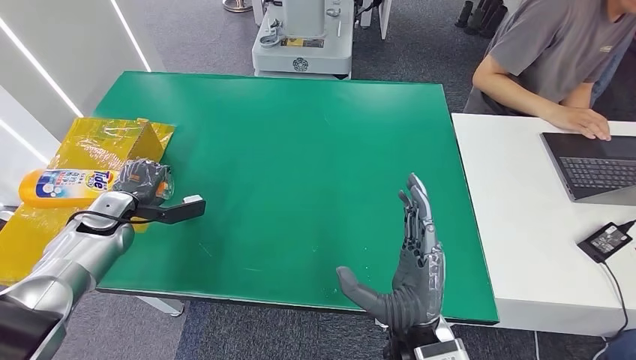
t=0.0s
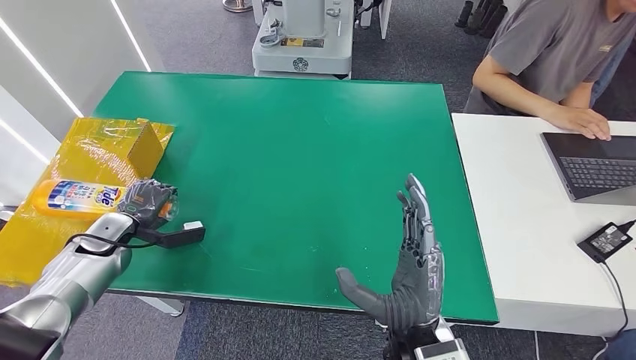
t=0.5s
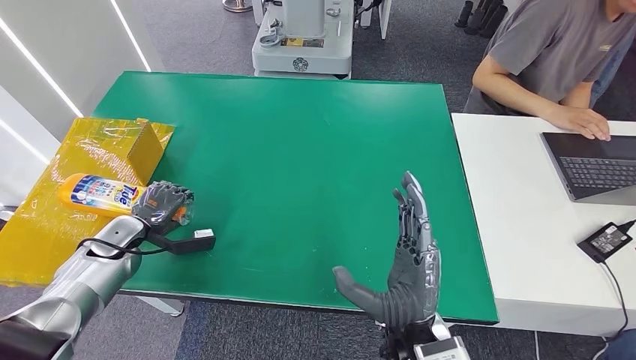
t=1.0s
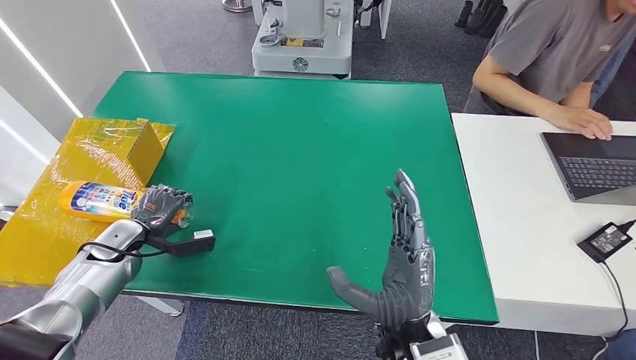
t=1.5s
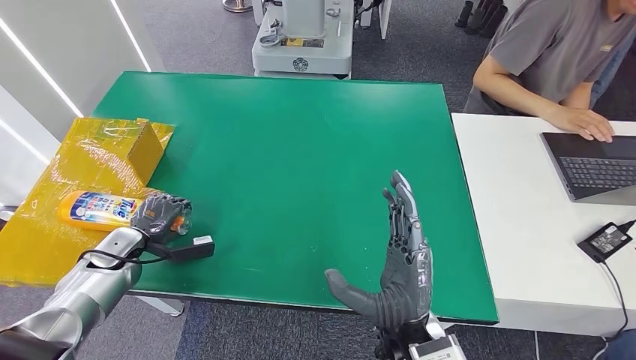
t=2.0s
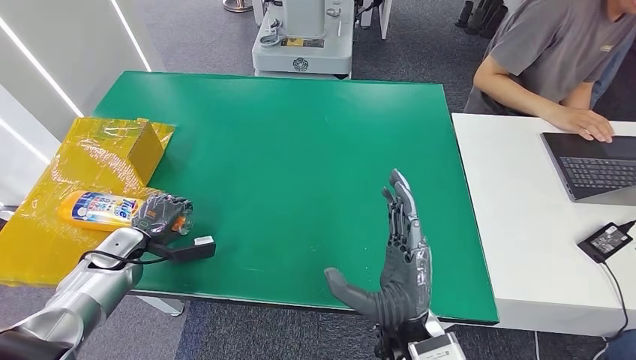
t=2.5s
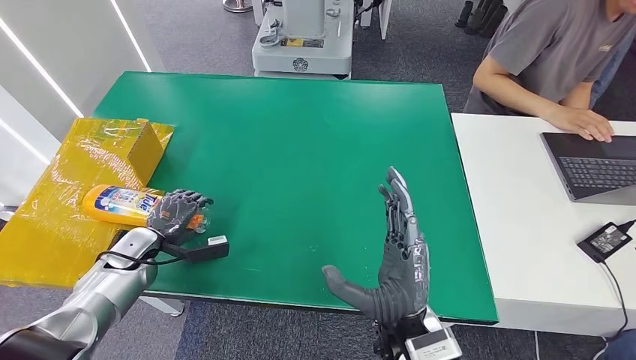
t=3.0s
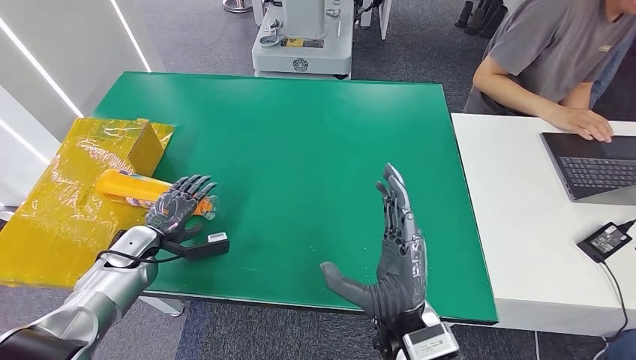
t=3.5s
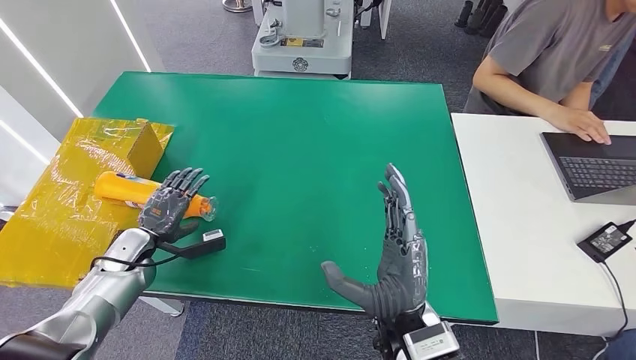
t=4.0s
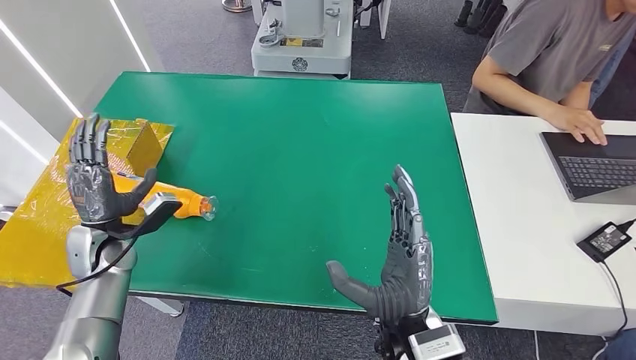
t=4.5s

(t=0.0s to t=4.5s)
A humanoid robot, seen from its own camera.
Step, t=0.0s - t=4.5s: Turn the bottle to the front side.
t=0.0s - t=2.0s: The left hand shifts roughly 5 cm downward.
t=2.0s - t=4.5s: The left hand shifts approximately 5 cm upward.

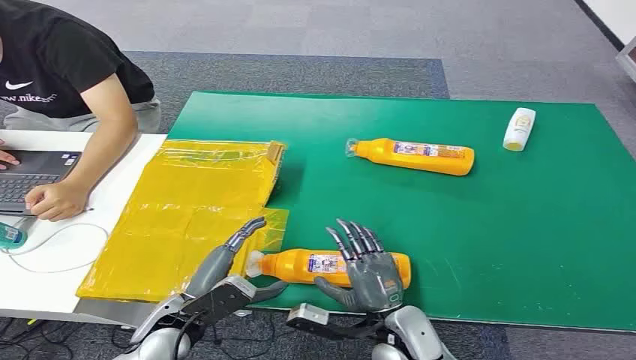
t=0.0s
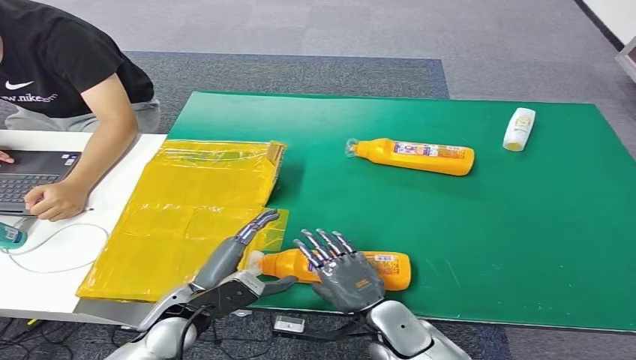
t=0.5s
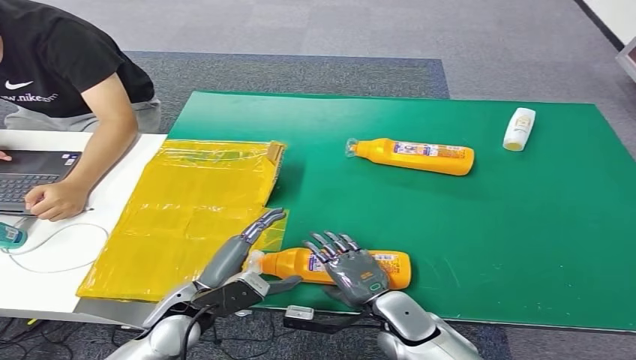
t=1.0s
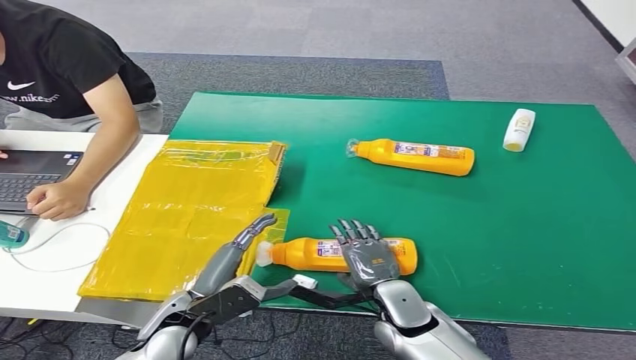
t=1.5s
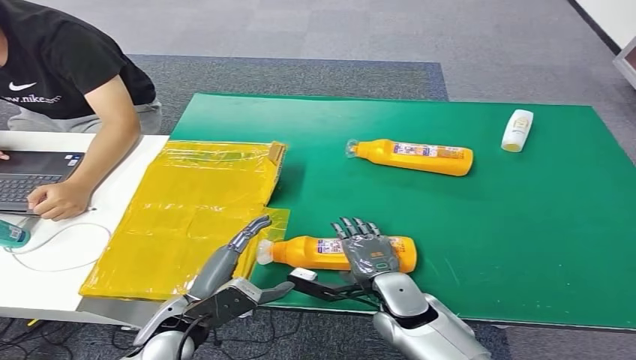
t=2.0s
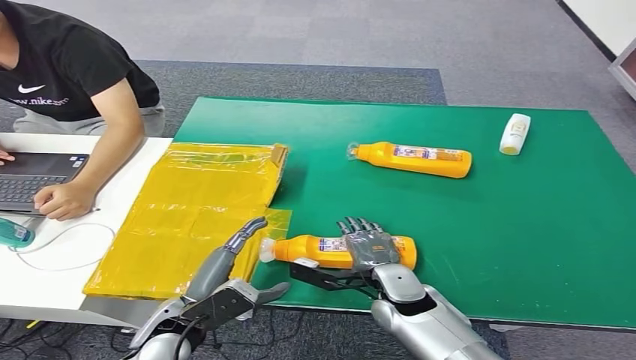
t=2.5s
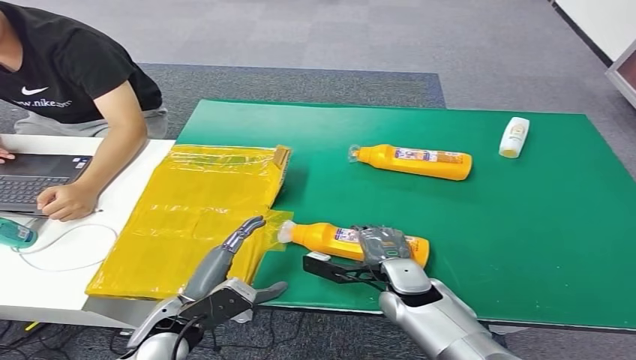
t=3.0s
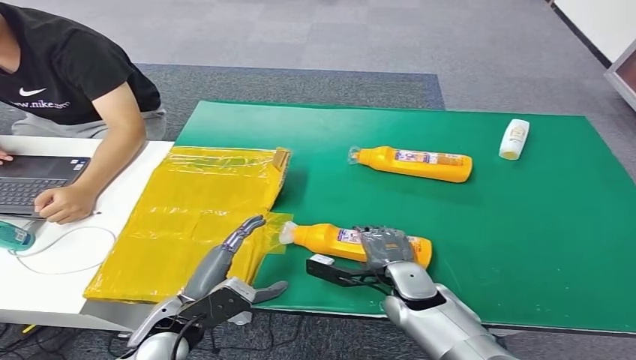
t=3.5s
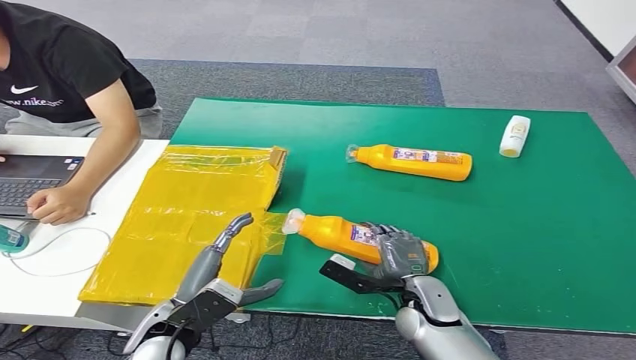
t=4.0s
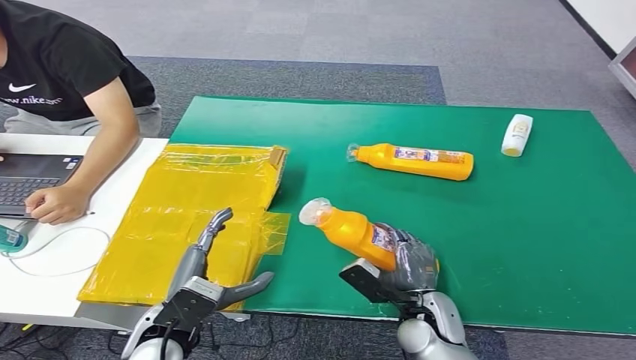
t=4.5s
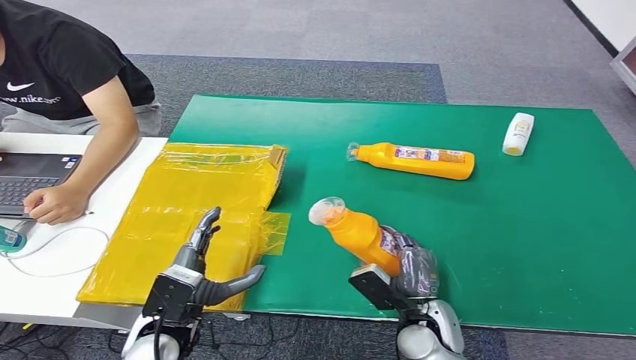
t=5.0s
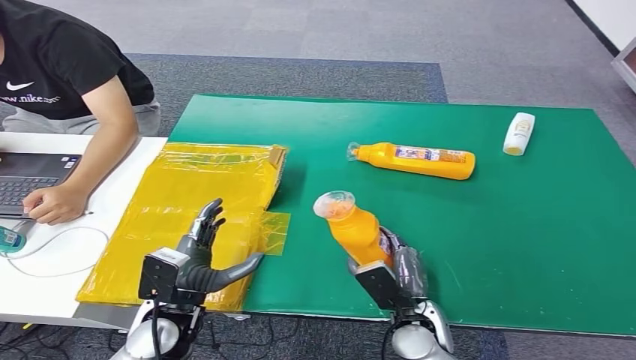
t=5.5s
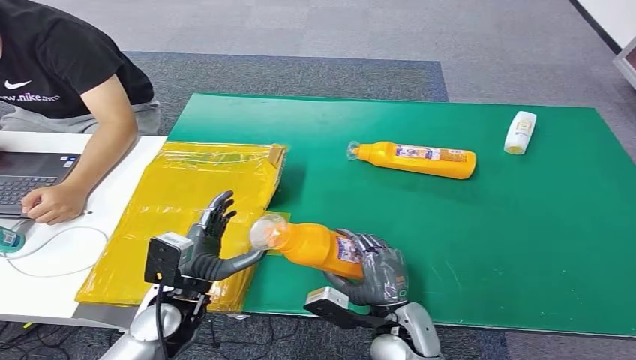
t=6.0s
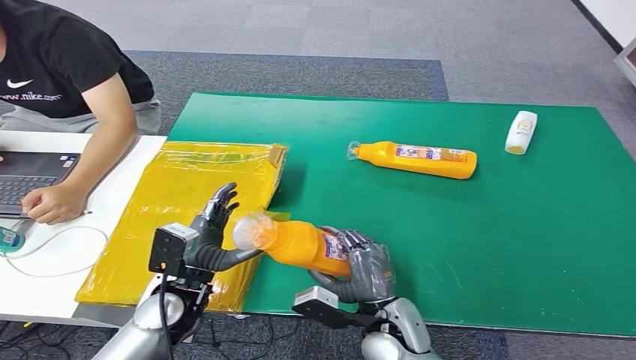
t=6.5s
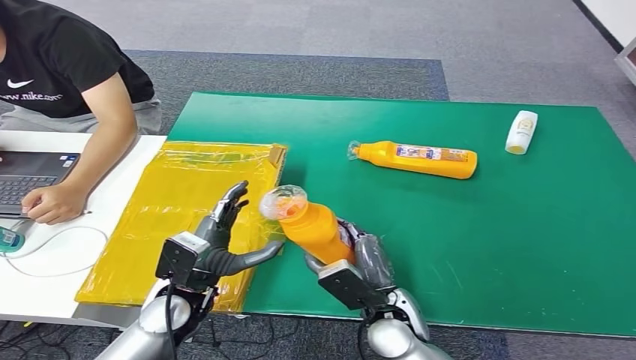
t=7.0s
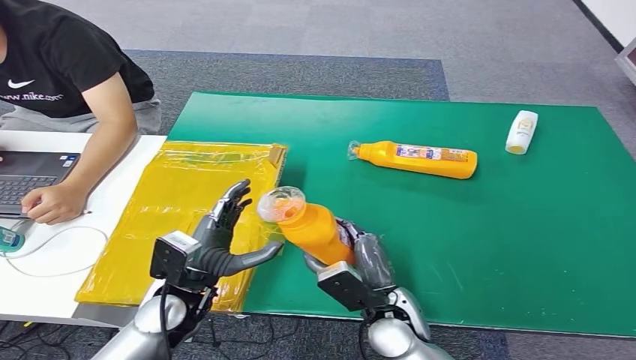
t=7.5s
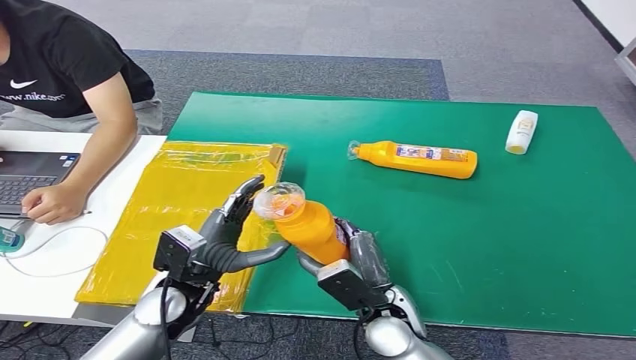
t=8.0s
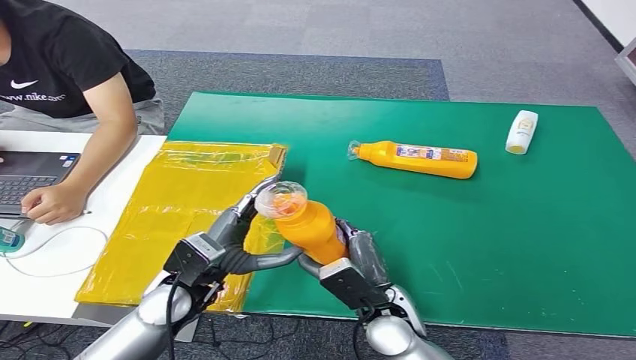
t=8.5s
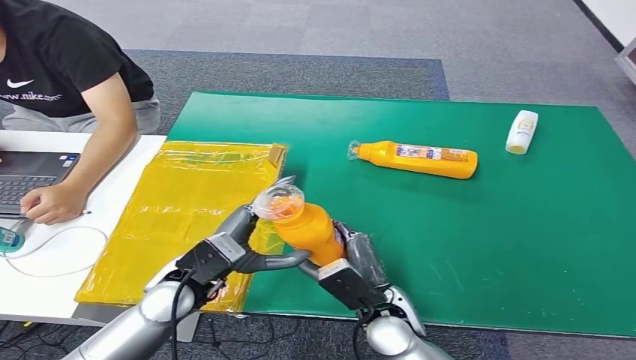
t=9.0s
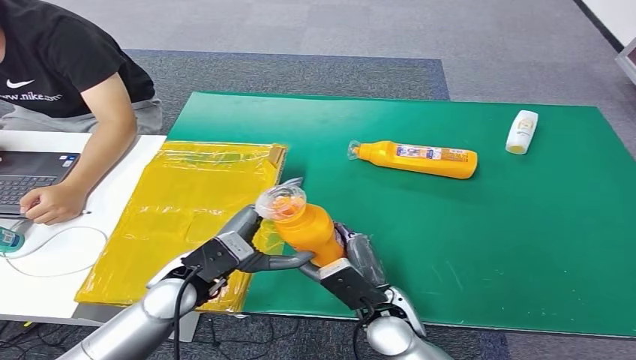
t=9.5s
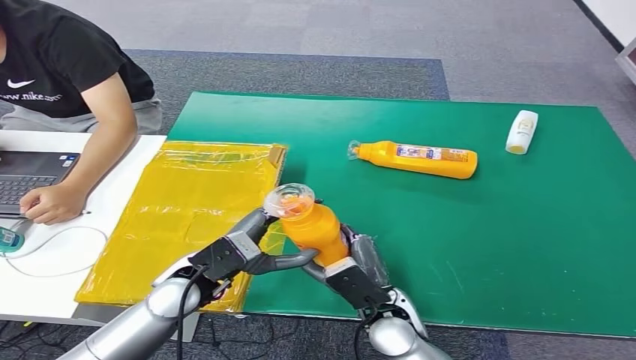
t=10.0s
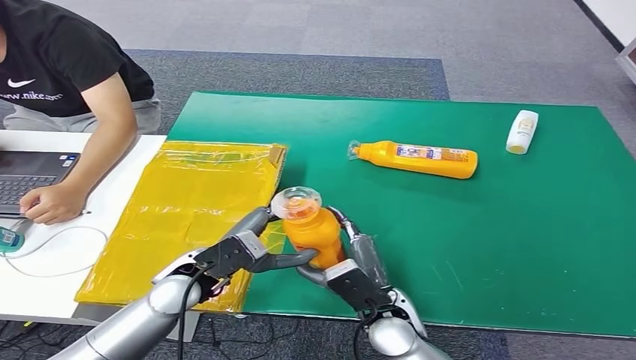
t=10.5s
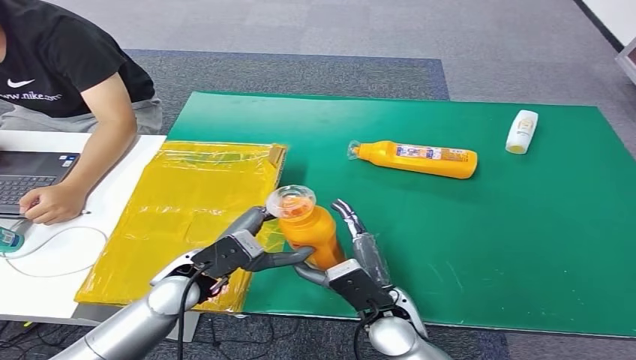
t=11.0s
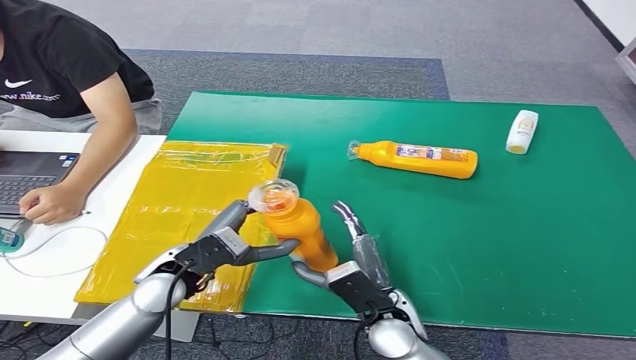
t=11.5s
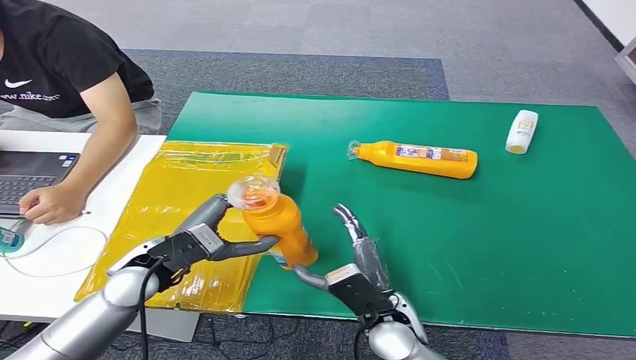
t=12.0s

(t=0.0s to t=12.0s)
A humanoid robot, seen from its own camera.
Step, t=0.0s - t=4.5s: Pick up the bottle from the table.
Step, t=5.0s - t=12.0s: Turn the bottle to the front side.
t=6.0s - t=8.0s: The right hand ends up approximately 5 cm from where it was.
t=8.0s - t=10.0s: The hands move only a little.
t=10.0s - t=12.0s: The left hand shifts some 5 cm to the left.

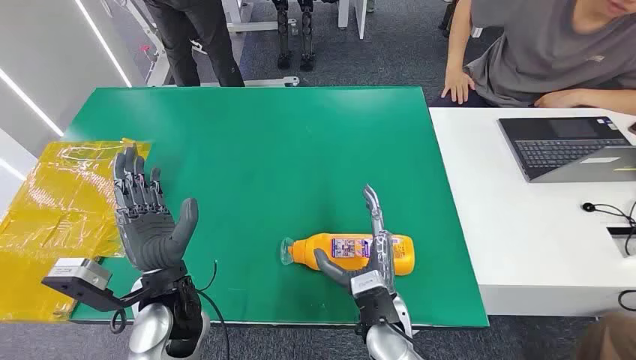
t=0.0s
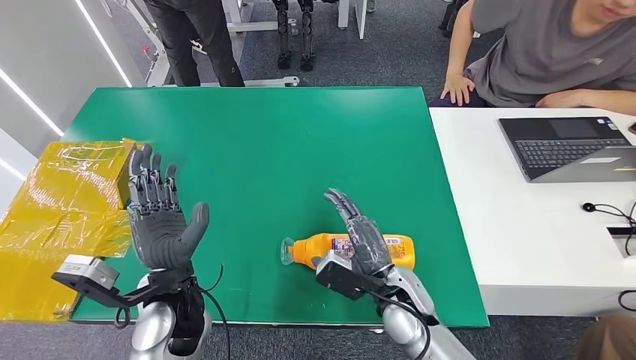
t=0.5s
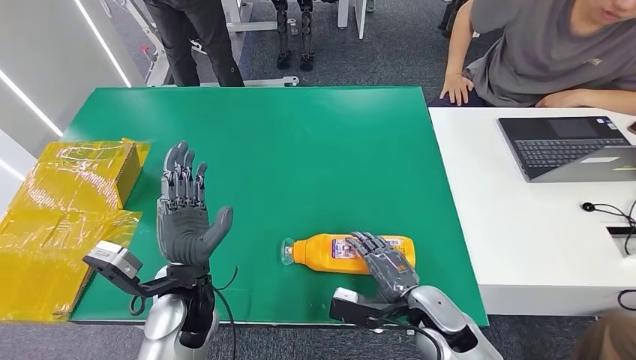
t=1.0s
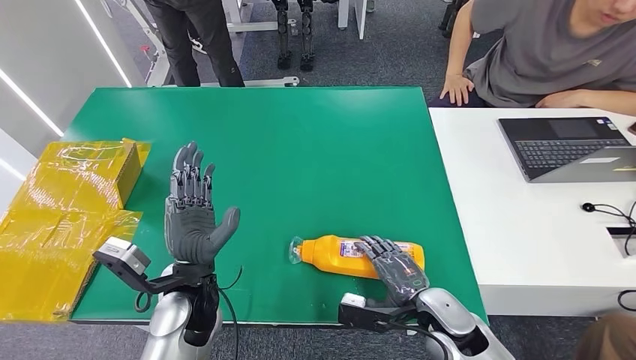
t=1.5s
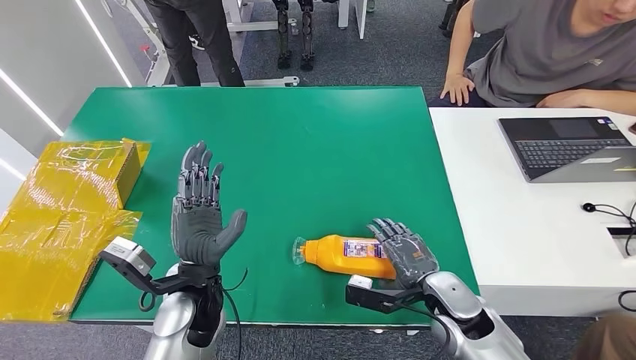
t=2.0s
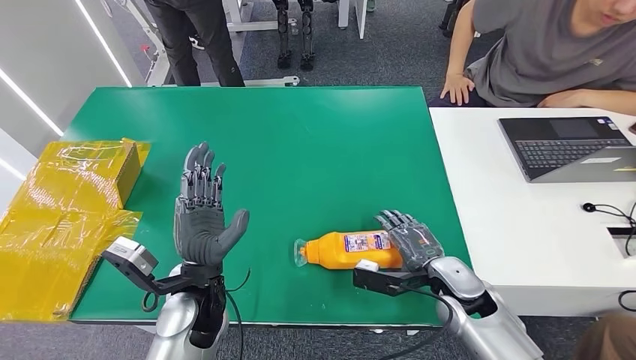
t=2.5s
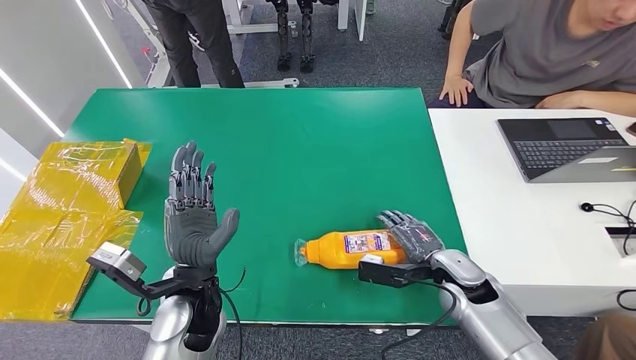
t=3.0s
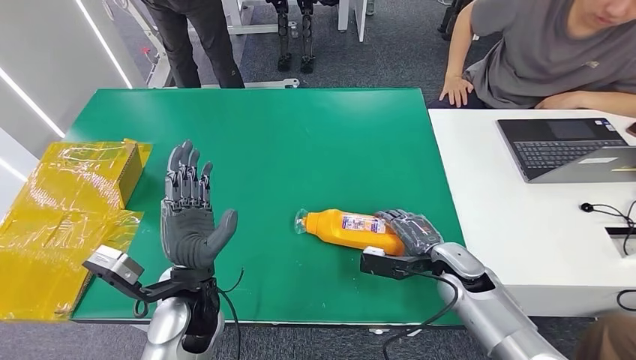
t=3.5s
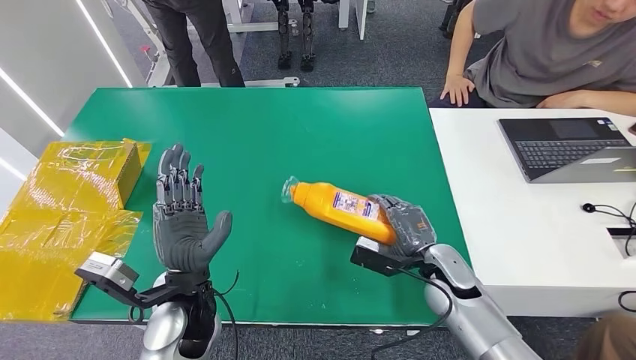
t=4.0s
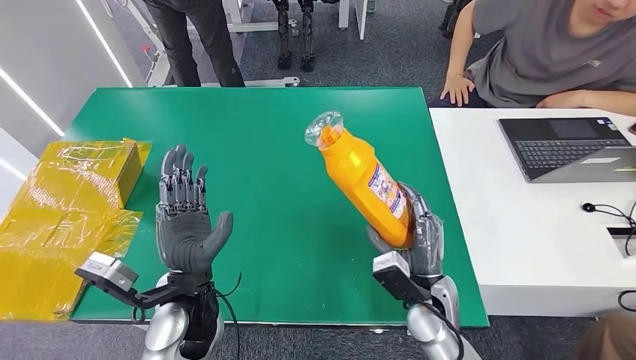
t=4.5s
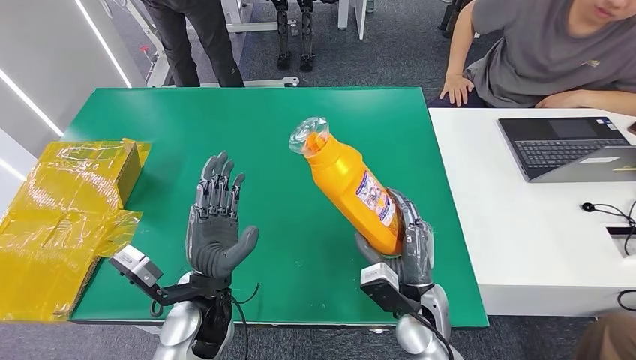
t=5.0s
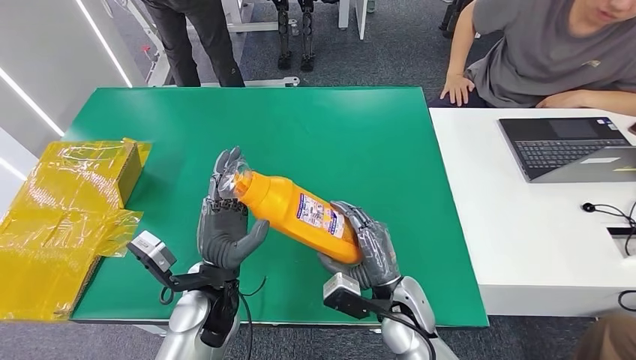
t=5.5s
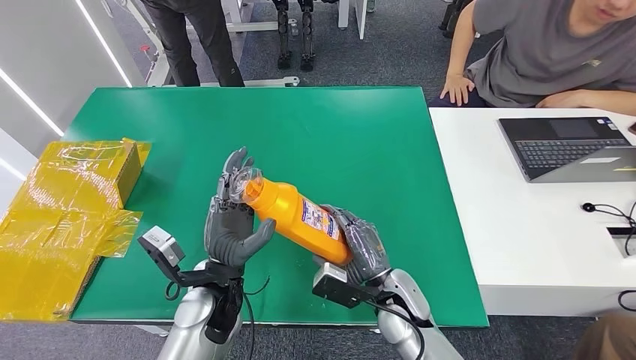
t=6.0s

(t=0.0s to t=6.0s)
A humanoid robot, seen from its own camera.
Step, t=0.0s - t=4.5s: Pick up the bottle from the table.
t=2.0s - t=4.0s: The right hand is displaced forward by approximately 5 cm.
t=4.0s - t=6.0s: The right hand goes about 10 cm to the left.
